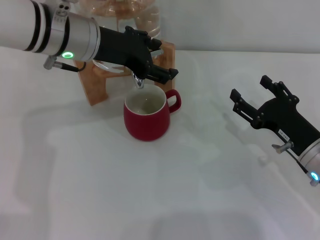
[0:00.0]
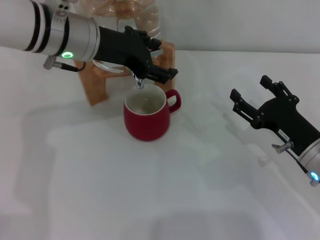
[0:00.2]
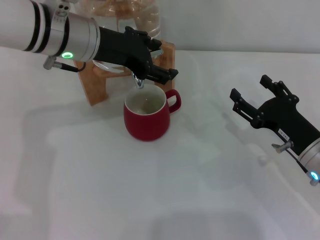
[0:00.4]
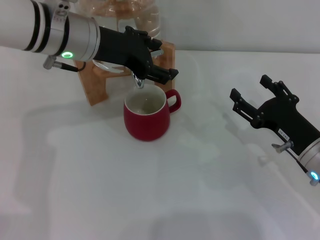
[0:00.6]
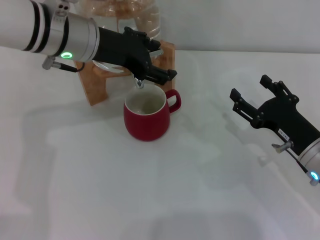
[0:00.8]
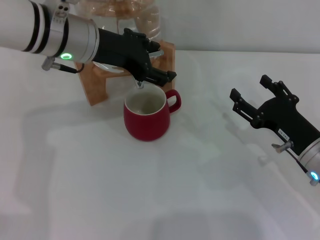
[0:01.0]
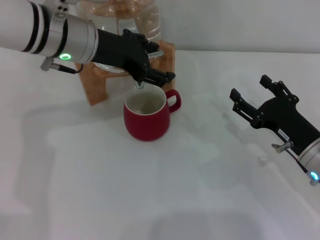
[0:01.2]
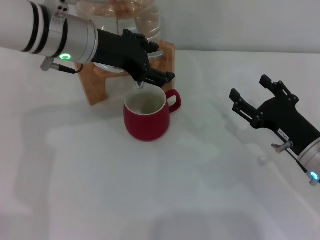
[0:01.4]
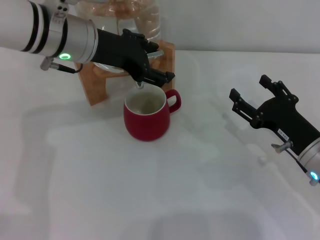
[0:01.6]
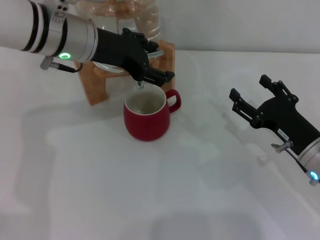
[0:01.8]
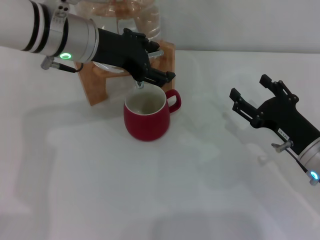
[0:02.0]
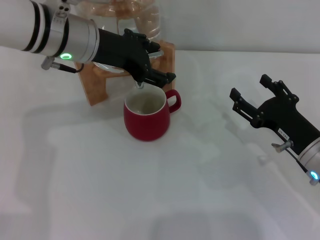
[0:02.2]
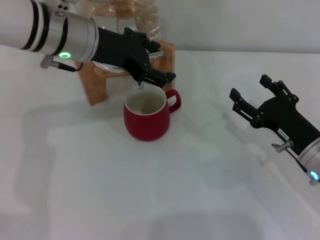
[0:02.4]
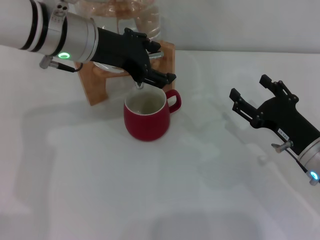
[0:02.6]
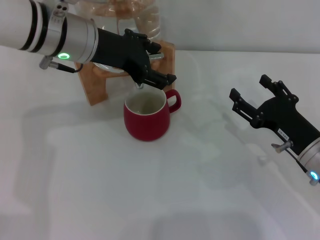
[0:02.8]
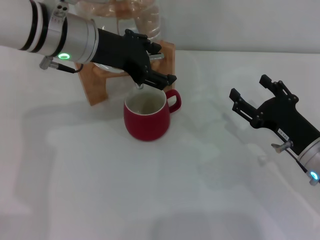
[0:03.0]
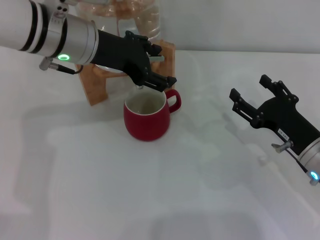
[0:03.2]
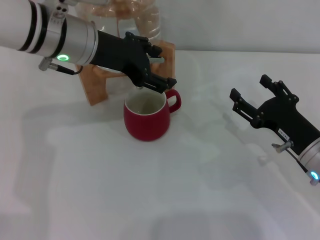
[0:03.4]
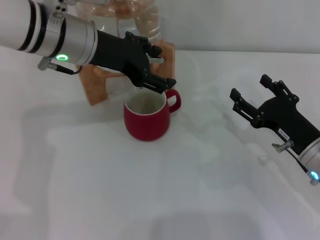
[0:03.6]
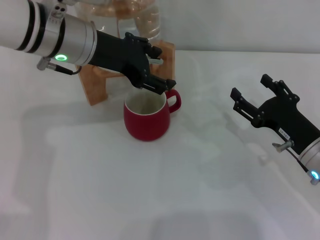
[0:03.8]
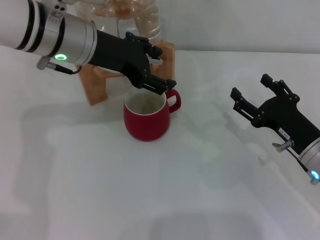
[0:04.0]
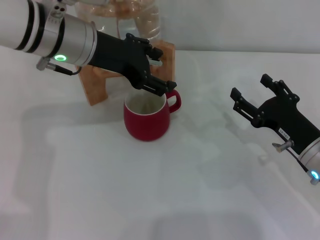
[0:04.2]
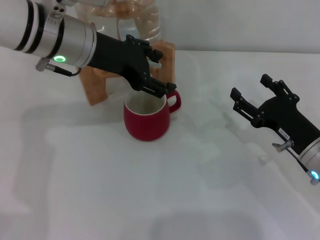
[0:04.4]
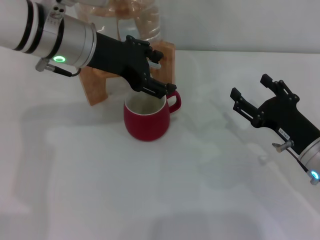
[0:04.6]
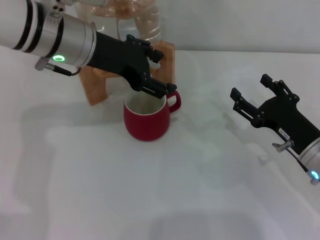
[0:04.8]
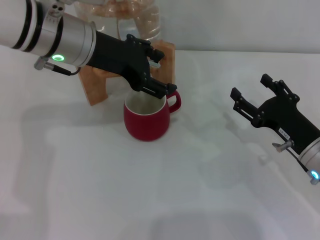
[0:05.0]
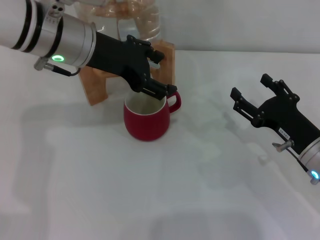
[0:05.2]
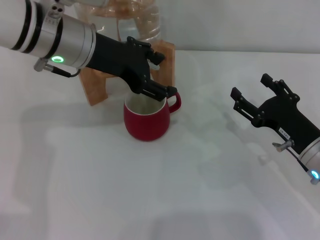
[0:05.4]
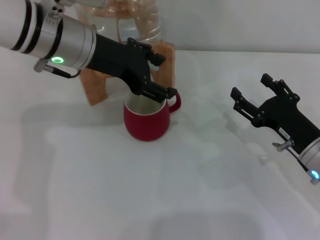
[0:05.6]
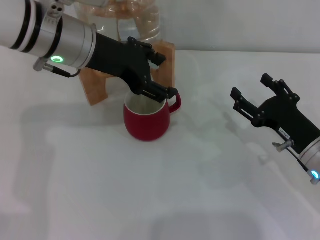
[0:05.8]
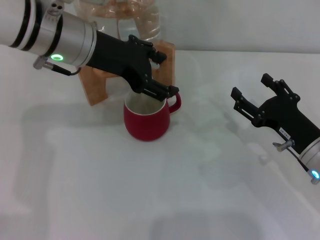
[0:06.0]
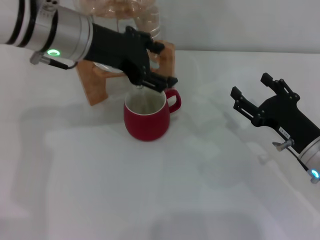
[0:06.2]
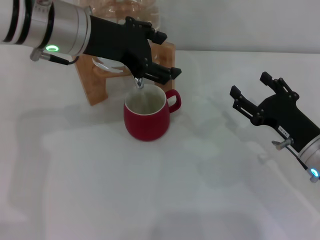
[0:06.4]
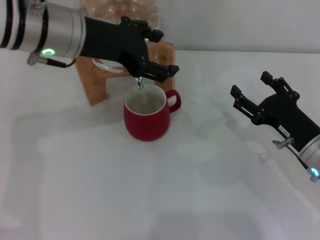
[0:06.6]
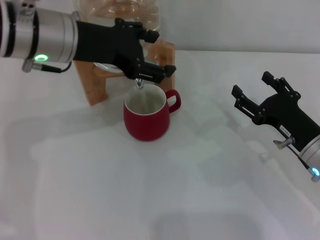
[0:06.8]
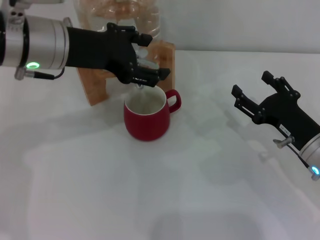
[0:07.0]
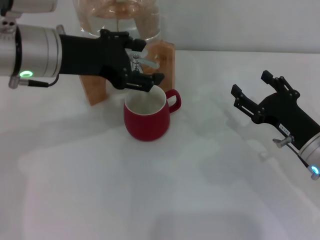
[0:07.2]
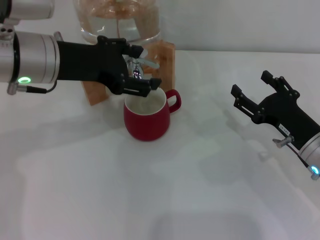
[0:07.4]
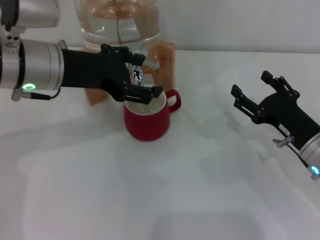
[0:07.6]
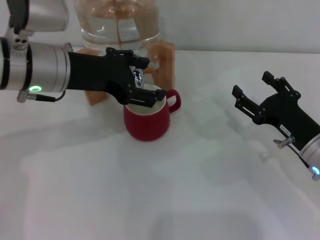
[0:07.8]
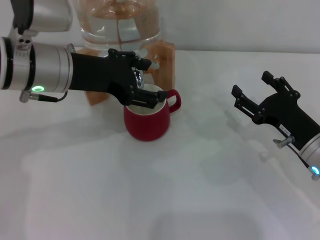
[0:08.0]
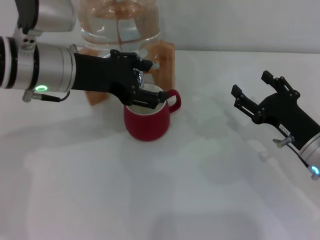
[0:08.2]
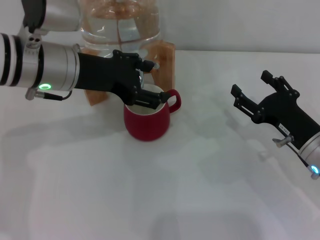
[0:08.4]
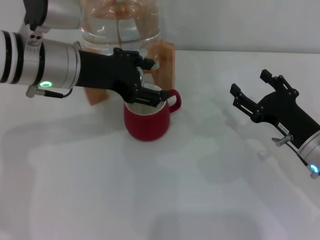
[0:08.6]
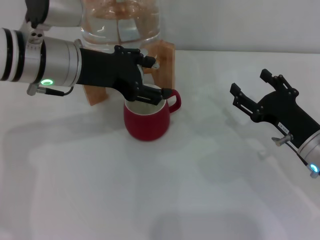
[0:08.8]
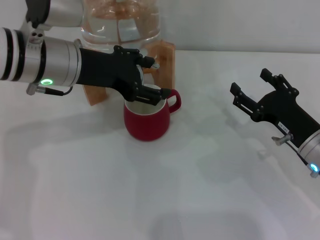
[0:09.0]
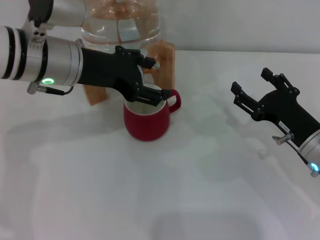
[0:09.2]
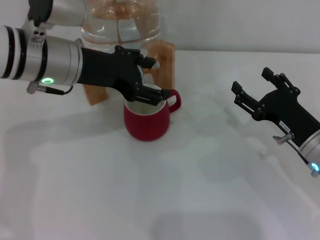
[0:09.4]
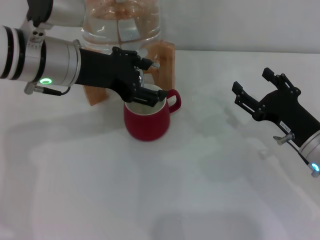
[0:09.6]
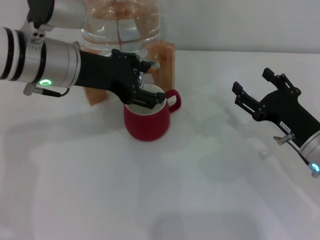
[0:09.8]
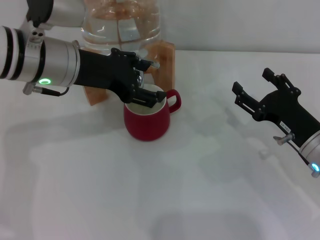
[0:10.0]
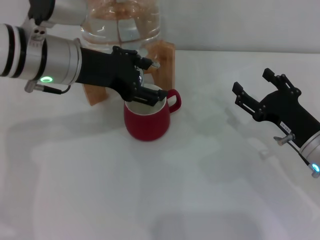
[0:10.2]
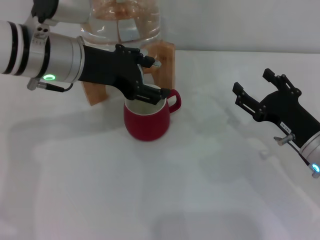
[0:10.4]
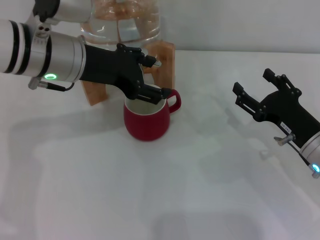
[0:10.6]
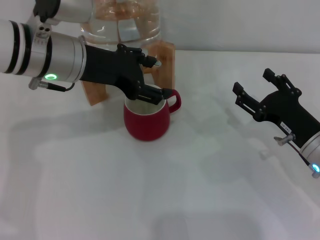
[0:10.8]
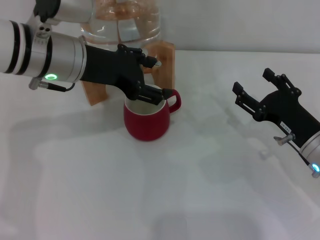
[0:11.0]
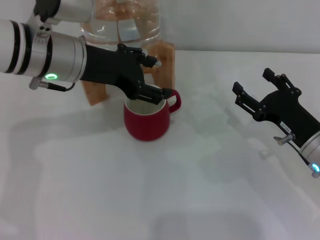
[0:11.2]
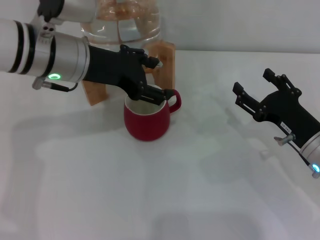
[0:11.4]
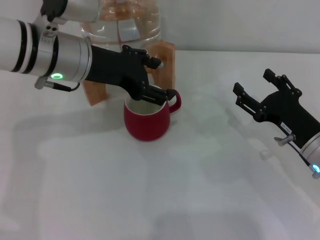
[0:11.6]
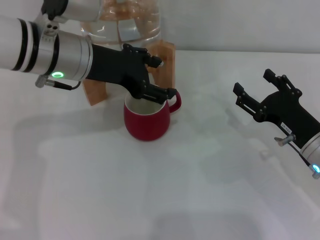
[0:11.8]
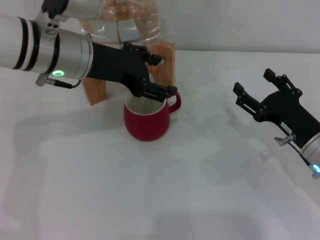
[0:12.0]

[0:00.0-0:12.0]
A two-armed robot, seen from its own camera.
Task of the whole recording: the right gripper pick up the red cup and place it horizontally under the faucet, the left gripper turn on the faucet to fill the cup, and then turn off the faucet.
Step, 0:00.0 to 0:06.0: Open the dispenser valve and fill the cup with water with the left gripper.
0:00.0 to 0:03.0: Neither gripper changes place.
0:03.0 to 0:04.4: Neither gripper changes place.
0:04.4 to 0:06.0: Both grippers stay about where they are.
0:06.0 to 0:07.6: The left gripper changes place by approximately 5 cm.
0:07.6 to 0:09.0: The grippers make only small movements.
0:09.0 to 0:10.4: The two grippers keep their place.
0:10.4 to 0:12.0: Both grippers stay put.

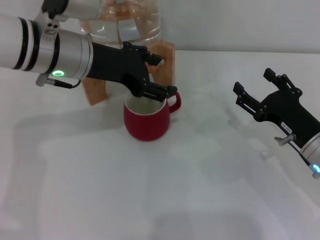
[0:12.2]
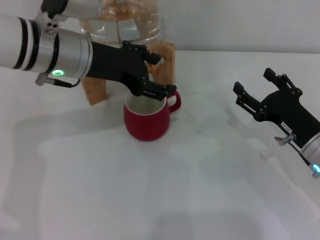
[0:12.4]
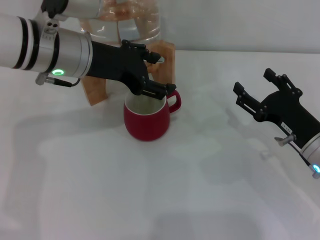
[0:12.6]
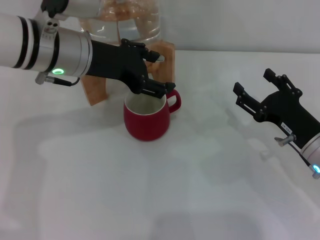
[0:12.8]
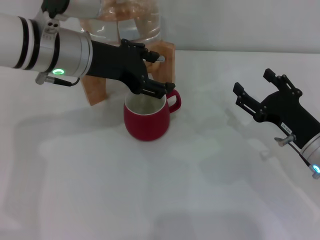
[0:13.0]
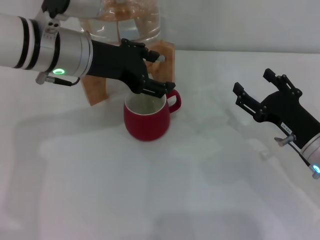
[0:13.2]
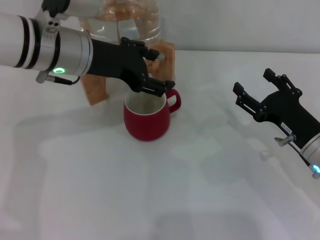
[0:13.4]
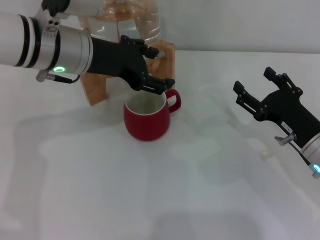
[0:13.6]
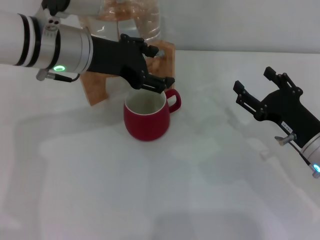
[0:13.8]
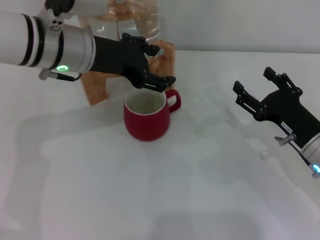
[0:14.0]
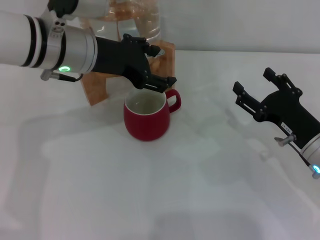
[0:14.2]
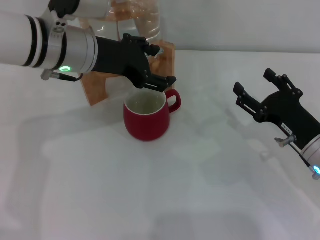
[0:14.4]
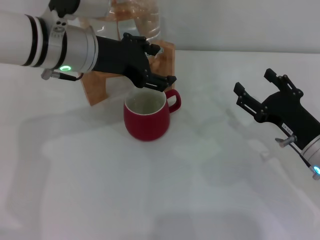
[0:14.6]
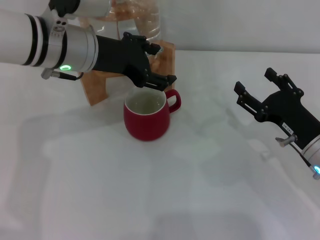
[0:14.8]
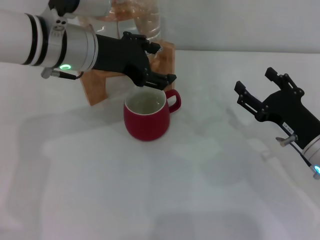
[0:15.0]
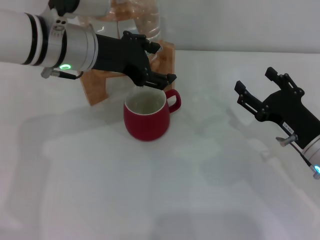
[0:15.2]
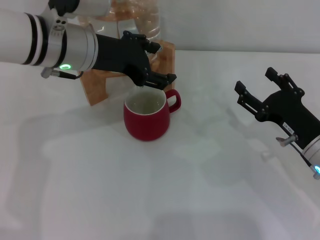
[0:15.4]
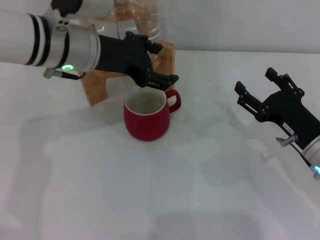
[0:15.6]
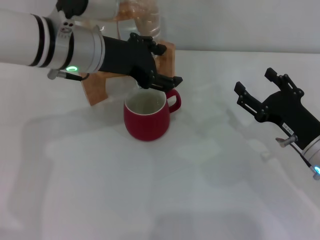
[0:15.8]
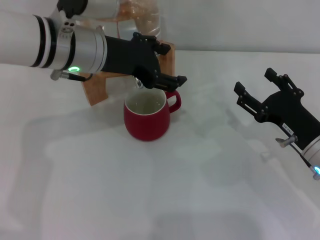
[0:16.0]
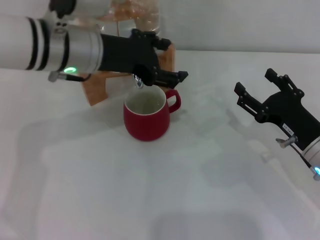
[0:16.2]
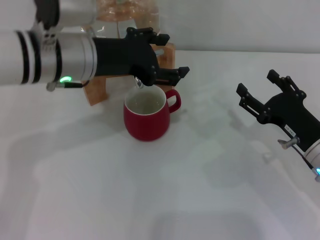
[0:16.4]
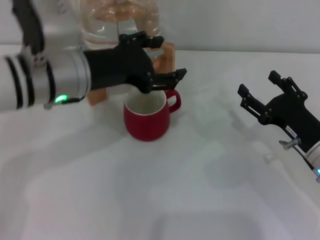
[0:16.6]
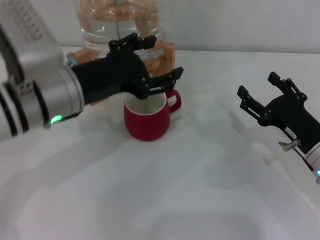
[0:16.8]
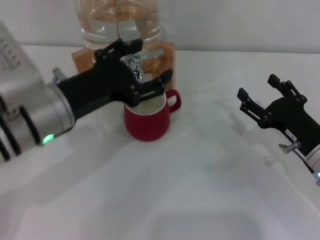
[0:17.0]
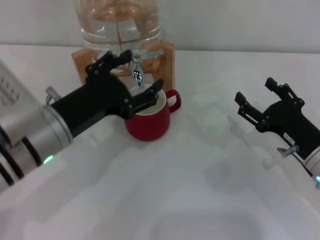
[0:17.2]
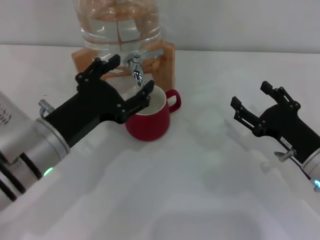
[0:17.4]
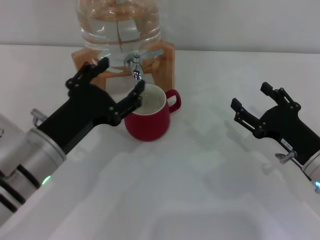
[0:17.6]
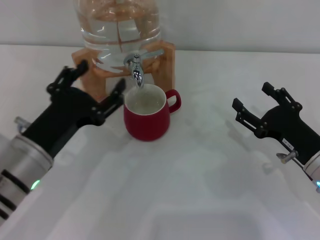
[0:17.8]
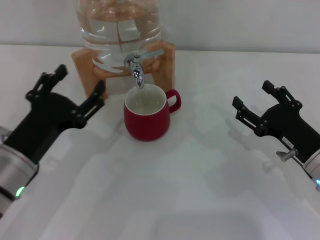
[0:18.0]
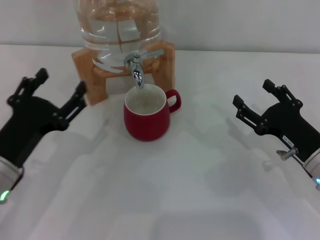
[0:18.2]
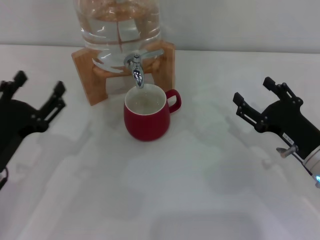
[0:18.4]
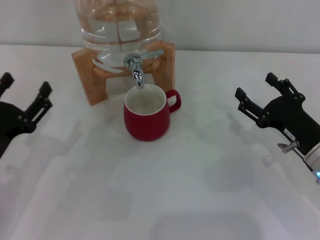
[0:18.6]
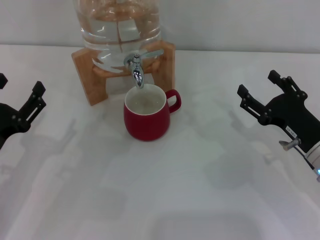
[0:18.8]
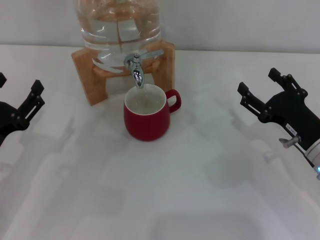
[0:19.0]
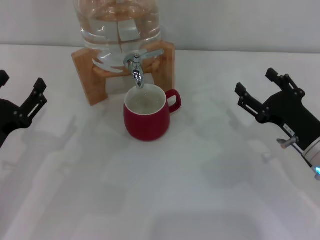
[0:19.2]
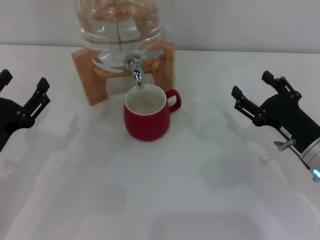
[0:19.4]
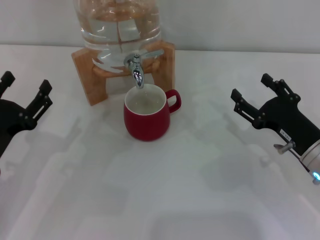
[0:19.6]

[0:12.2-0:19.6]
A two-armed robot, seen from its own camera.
Task of the whole recording: the right gripper pick up the red cup and place it horizontally under the faucet, the left gripper turn on the faucet to fill the cup, and then turn off the faucet.
Step, 0:12.2 to 0:15.8: Close the dispenser valve with the left gripper.
0:12.2 to 0:13.6: Both grippers stay put.
0:13.6 to 0:15.2: The two grippers keep their place.
0:15.2 to 0:16.6: The left gripper is displaced backward by approximately 5 cm.
0:16.6 to 0:18.2: The left gripper travels backward, downward and to the left by some 15 cm.
0:18.2 to 0:19.6: The grippers make only small movements.
